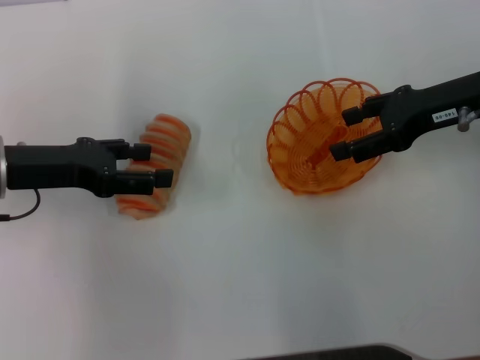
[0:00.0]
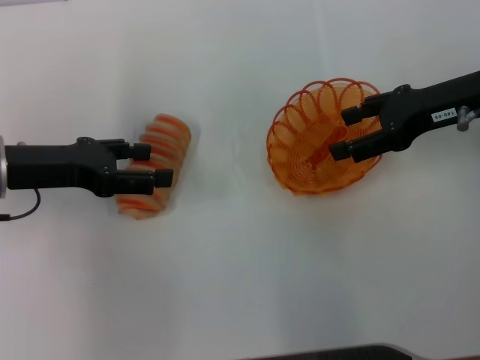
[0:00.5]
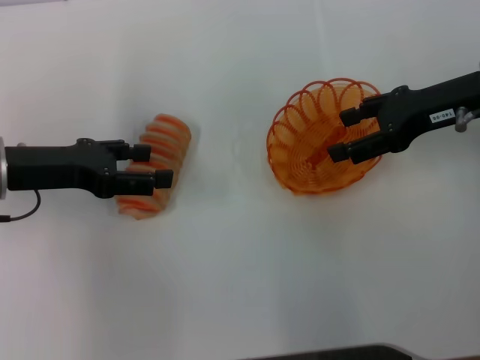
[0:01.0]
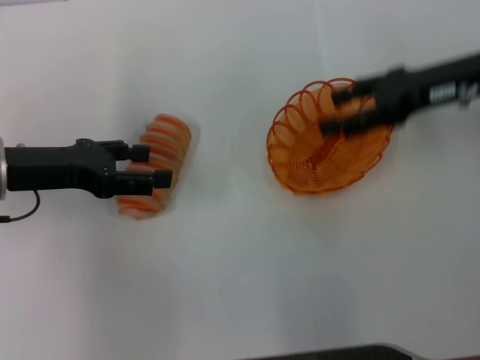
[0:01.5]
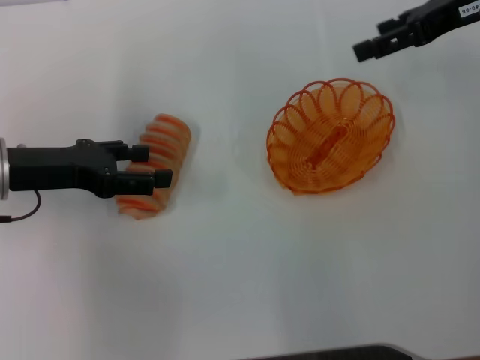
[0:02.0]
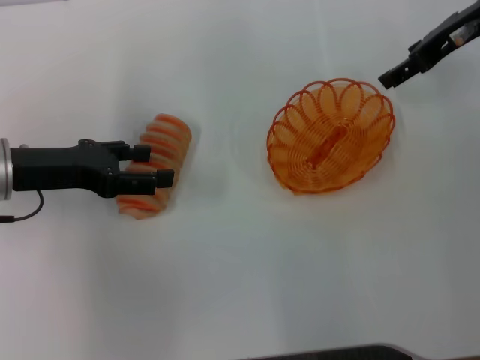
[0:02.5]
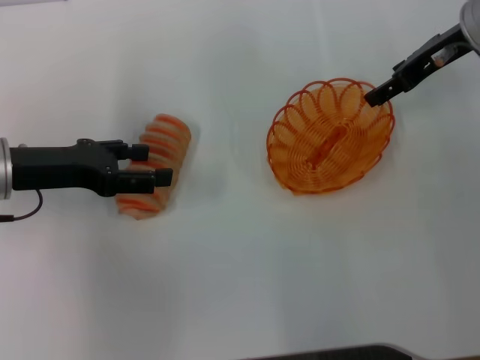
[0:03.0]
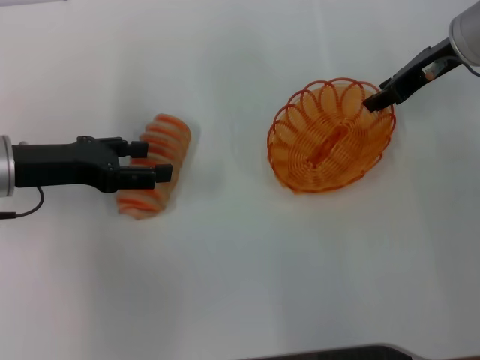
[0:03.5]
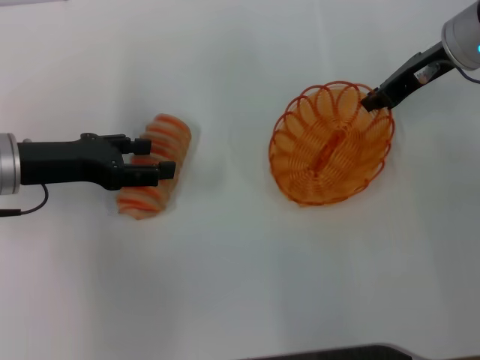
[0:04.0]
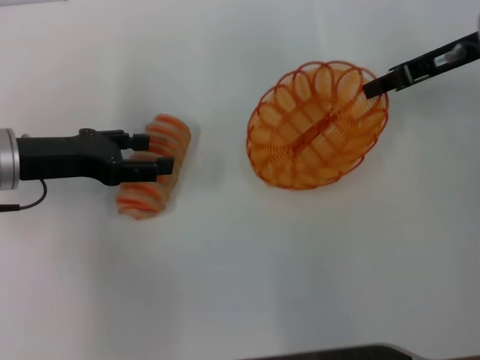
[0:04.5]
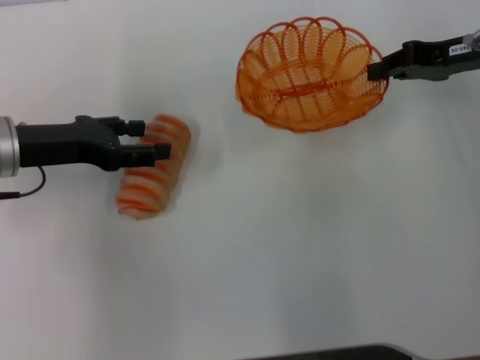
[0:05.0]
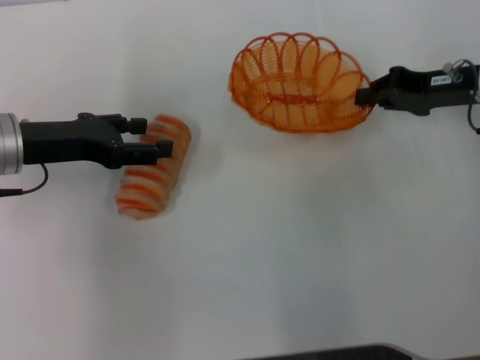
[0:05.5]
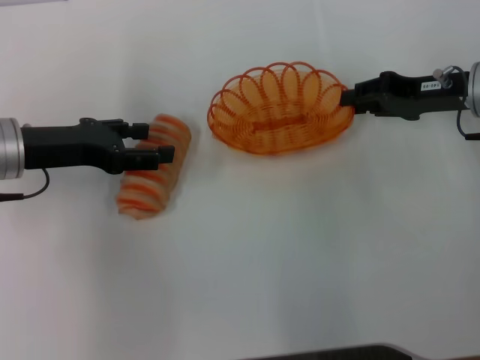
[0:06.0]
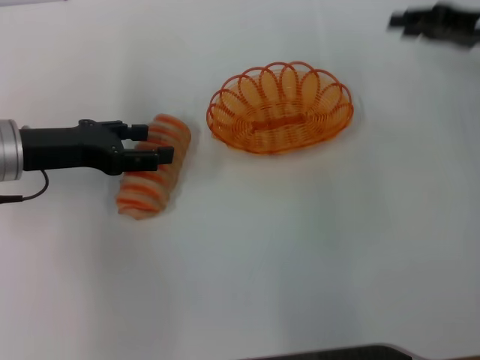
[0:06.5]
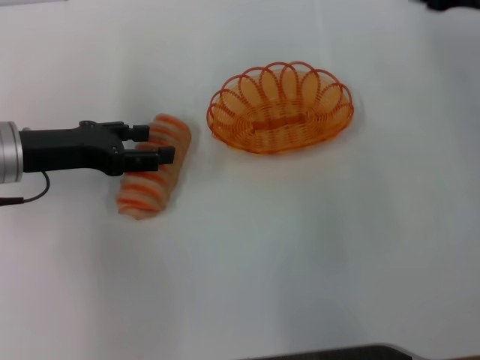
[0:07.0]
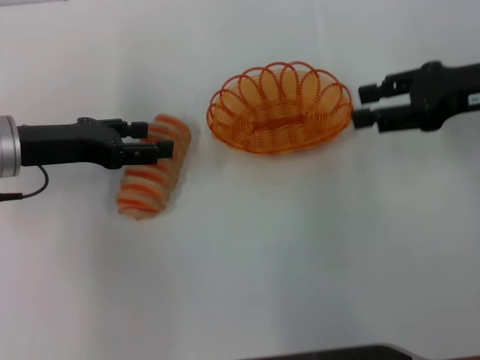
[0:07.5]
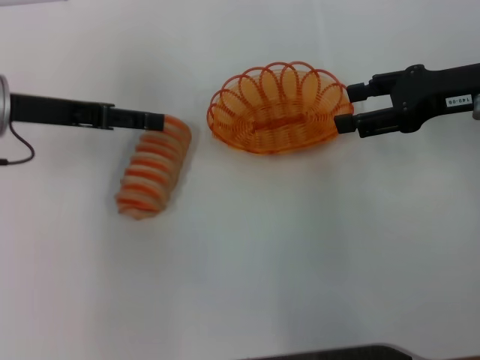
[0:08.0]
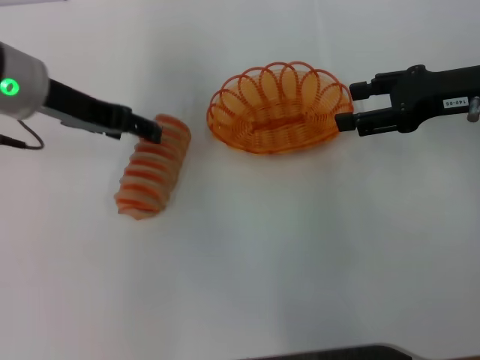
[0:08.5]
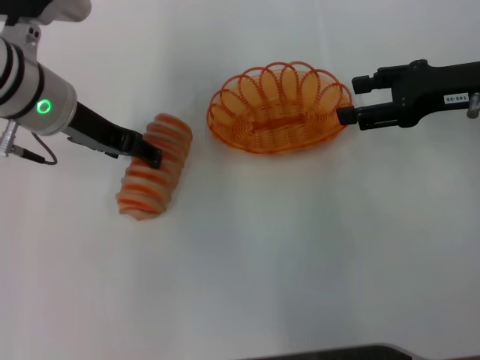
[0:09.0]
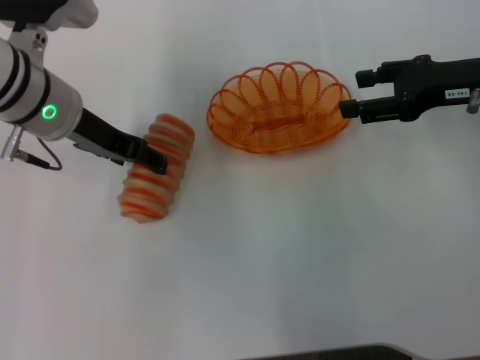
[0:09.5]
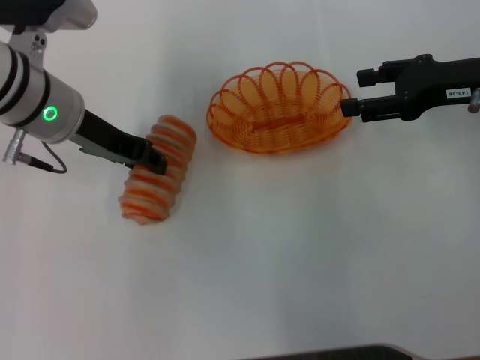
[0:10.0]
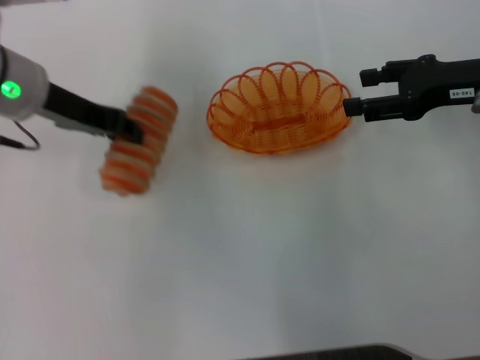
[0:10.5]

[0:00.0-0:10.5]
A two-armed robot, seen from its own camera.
Step, 0:00.0 to 0:04.5: Pick up the basket with the right gripper.
Step, 0:05.0 to 0:06.0: Place the basket in the center of view with the right gripper.
0:00.0 to 0:02.0: The right gripper shifts approximately 10 cm upward and forward.
0:02.0 to 0:04.0: The right gripper moves downward, about 5 cm, and closes up.
0:04.0 to 0:06.5: The right gripper shifts about 10 cm to the right.
0:06.5 to 0:08.5: The left gripper shifts roughly 5 cm upward; the right gripper shifts by approximately 5 cm, and opens its fingers.
0:08.5 to 0:10.5: The left gripper closes up.

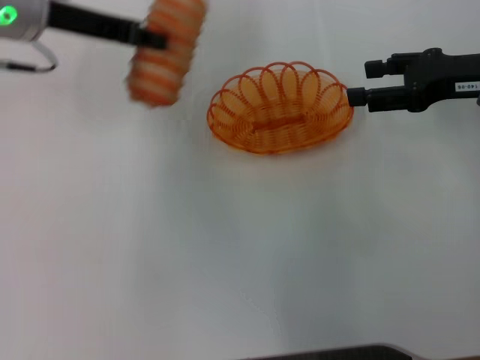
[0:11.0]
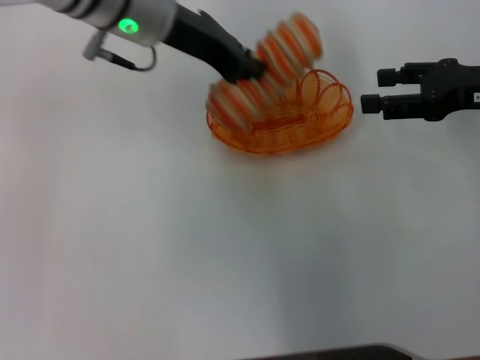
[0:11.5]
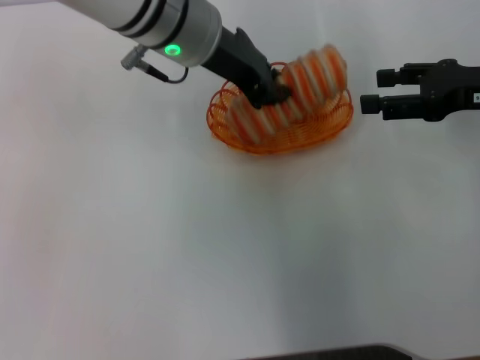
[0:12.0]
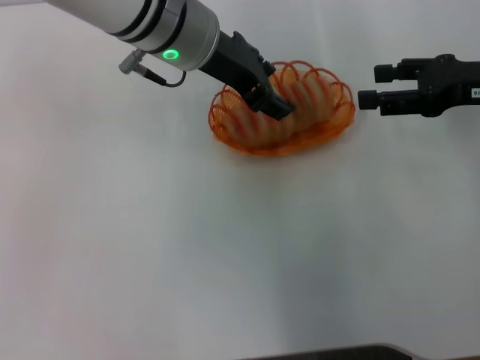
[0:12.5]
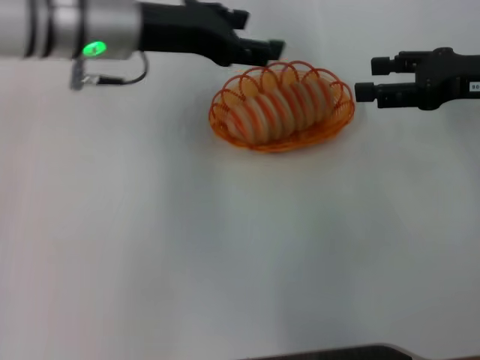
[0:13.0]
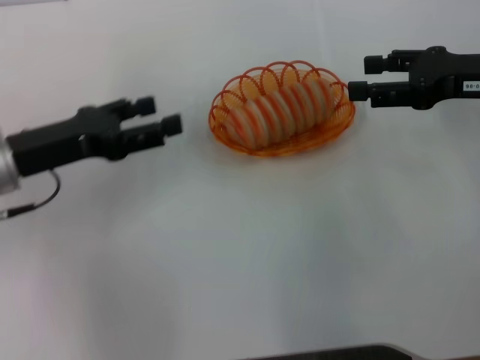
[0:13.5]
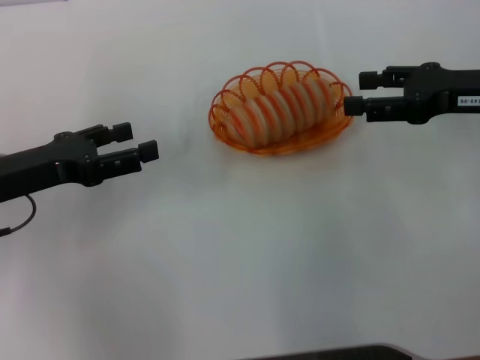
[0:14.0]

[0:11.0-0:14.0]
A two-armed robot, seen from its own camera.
Step, 0:11.0 to 0:12.5: Place the long bread into the basket with the left gripper.
0:11.0 to 0:12.5: The left gripper moves to the right, approximately 15 cm.
0:12.5 to 0:14.0: The left gripper goes approximately 25 cm to the left, backward and downward, and opens.
